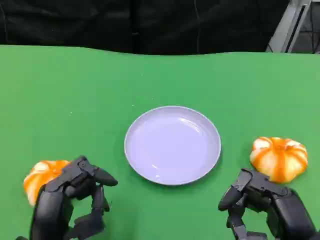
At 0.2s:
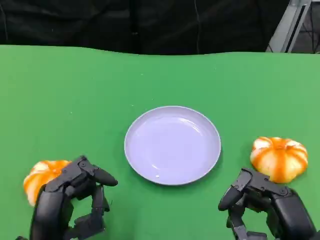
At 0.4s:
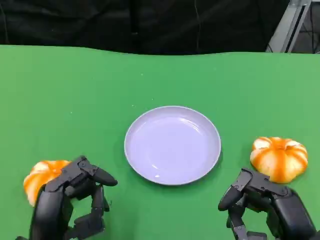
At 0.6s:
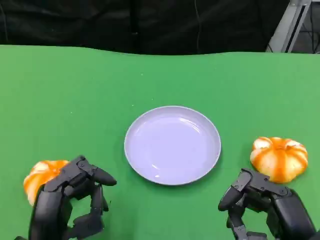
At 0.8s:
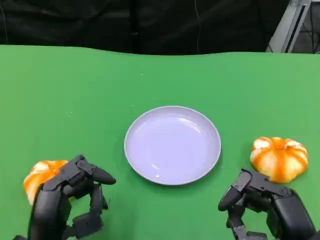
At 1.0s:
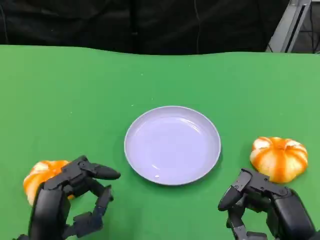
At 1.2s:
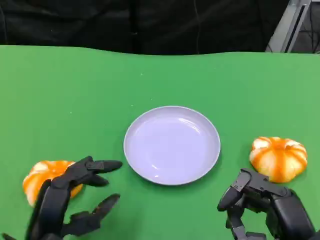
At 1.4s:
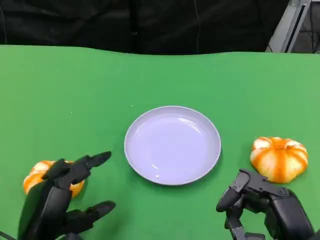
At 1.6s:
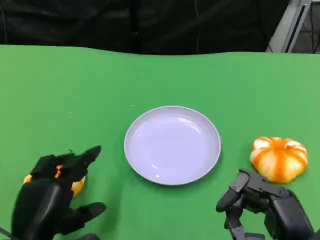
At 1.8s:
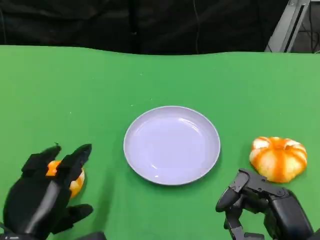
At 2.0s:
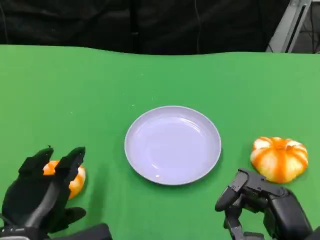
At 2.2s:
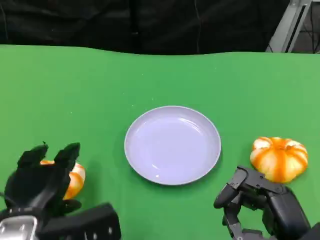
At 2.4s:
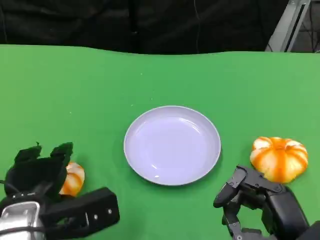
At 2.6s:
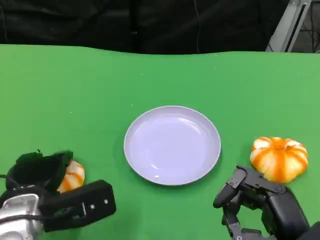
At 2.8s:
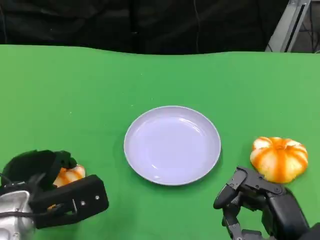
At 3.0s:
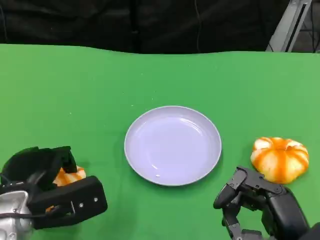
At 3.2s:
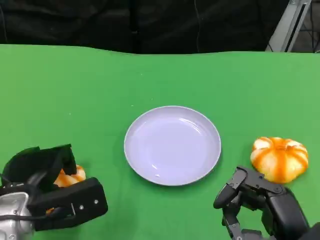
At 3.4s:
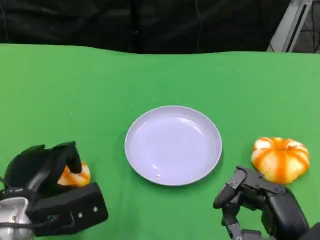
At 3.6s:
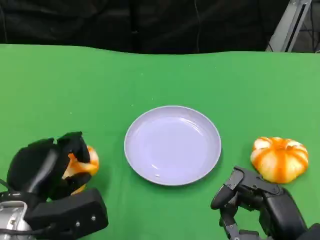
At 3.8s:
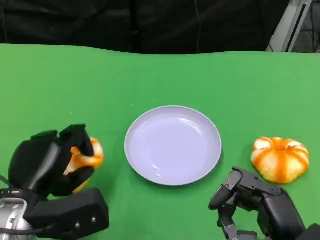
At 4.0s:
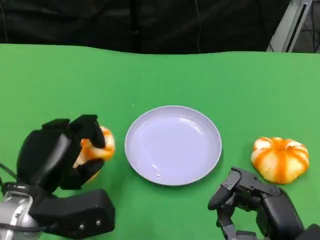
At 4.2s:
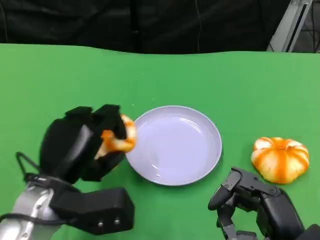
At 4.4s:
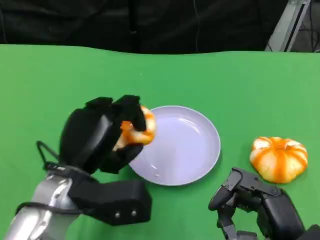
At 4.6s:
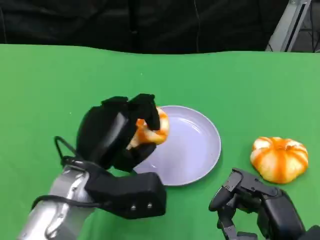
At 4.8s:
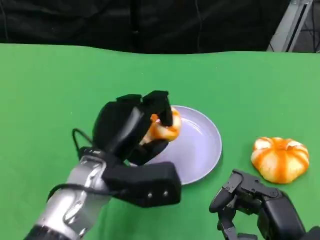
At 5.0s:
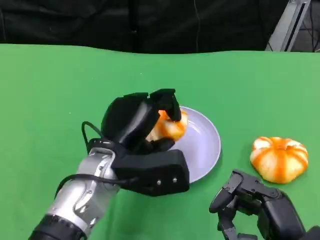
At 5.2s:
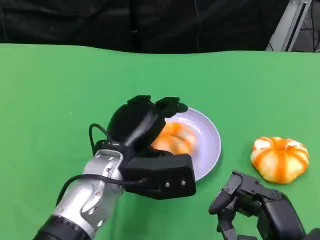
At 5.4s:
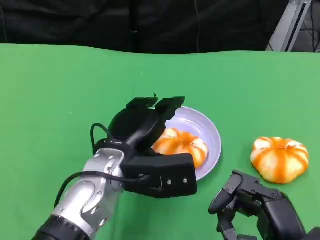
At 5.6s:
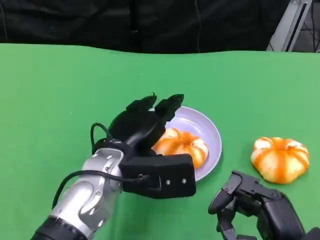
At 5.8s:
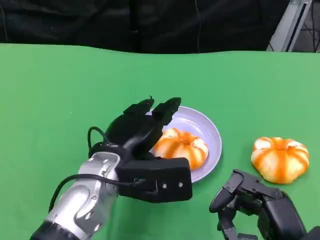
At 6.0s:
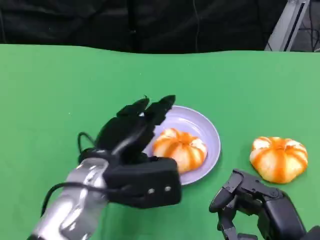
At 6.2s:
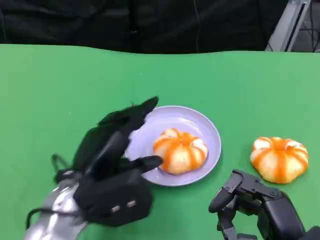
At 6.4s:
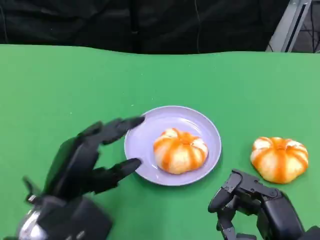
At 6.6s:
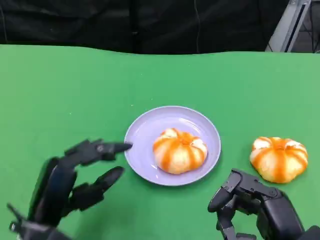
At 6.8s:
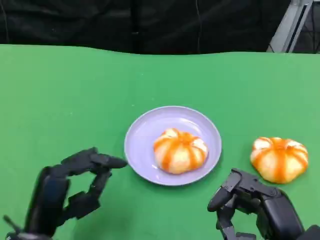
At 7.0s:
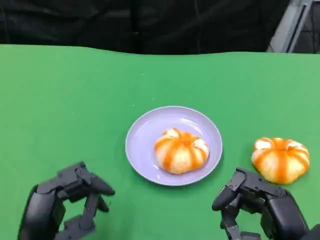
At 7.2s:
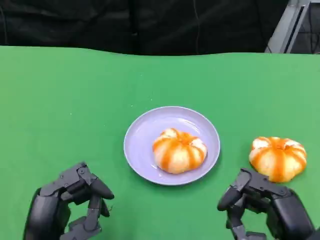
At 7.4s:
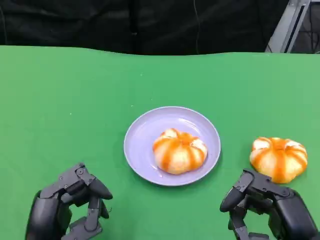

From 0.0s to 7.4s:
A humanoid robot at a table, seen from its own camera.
Task of the whole recording: Grasp the bread from the table and place it into the plate.
From 1.4s to 3.0s: The left hand moves forward, approximately 5 cm.
From 3.0s to 4.4s: The left hand is displaced to the right by about 5 cm.
From 6.0s to 7.4s: The left hand moves backward, to the left and downward, some 15 cm.

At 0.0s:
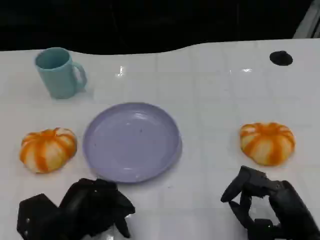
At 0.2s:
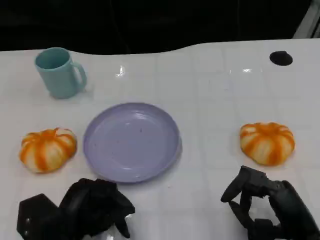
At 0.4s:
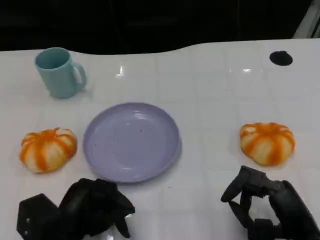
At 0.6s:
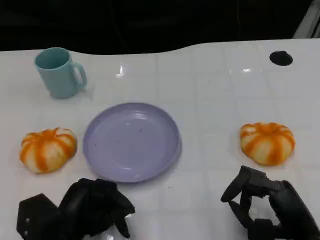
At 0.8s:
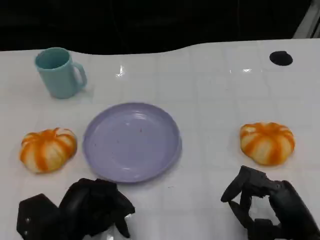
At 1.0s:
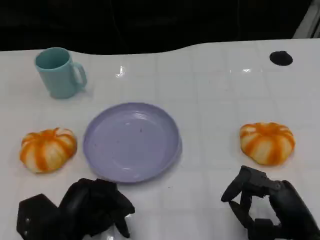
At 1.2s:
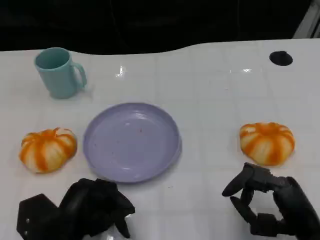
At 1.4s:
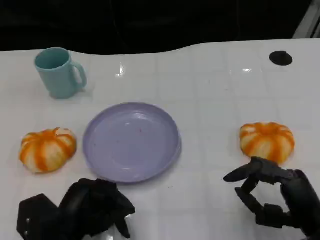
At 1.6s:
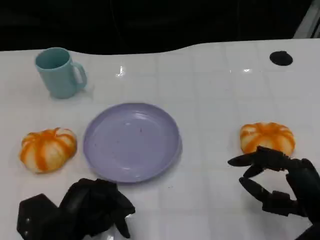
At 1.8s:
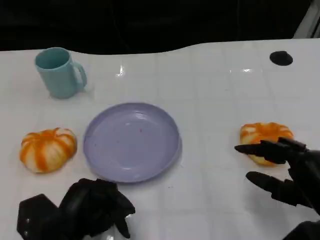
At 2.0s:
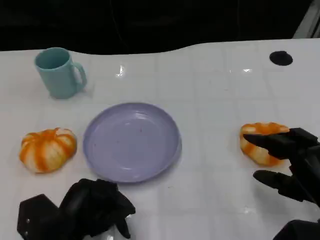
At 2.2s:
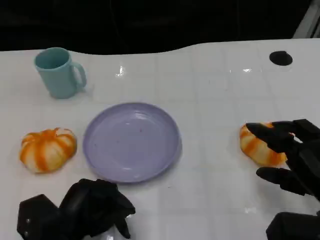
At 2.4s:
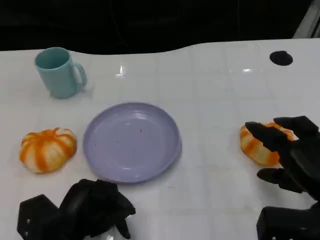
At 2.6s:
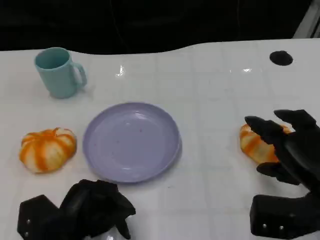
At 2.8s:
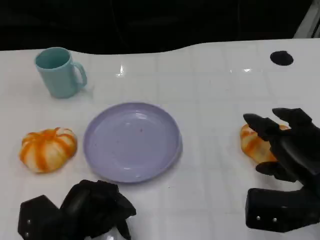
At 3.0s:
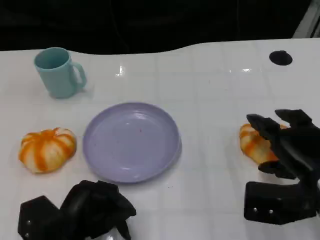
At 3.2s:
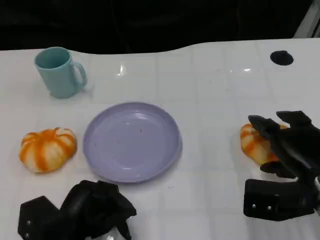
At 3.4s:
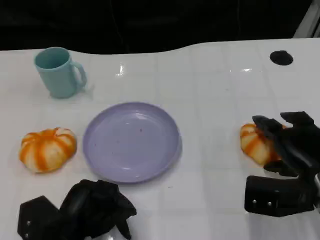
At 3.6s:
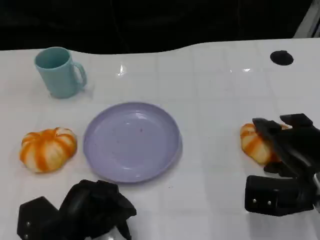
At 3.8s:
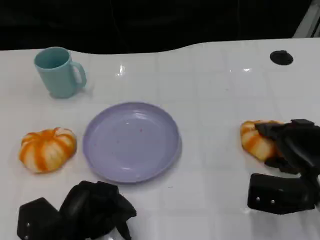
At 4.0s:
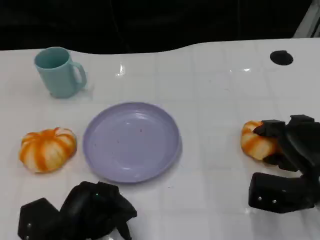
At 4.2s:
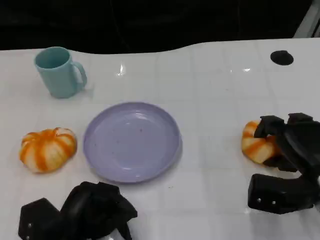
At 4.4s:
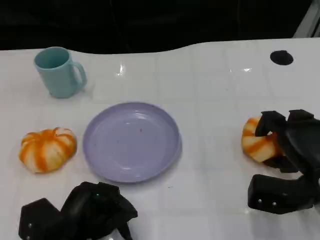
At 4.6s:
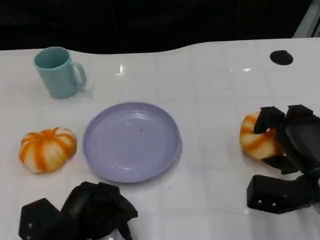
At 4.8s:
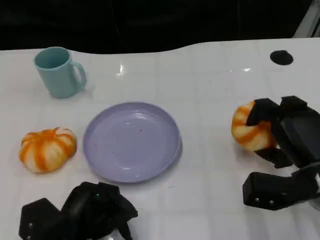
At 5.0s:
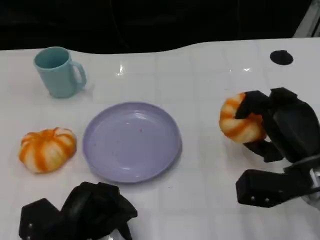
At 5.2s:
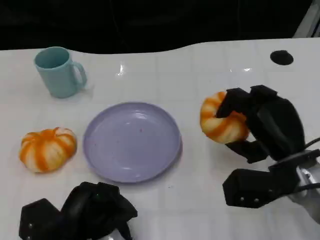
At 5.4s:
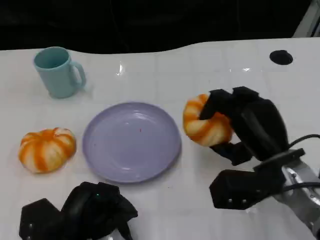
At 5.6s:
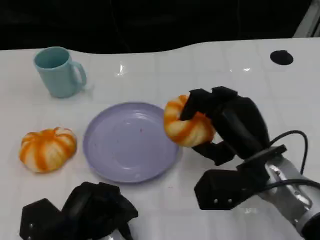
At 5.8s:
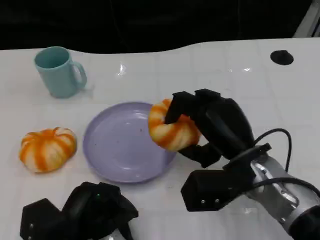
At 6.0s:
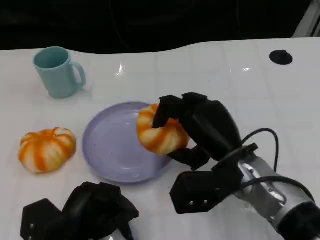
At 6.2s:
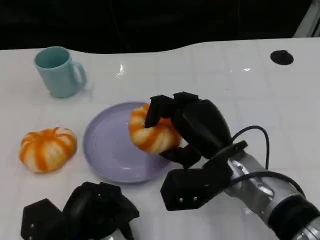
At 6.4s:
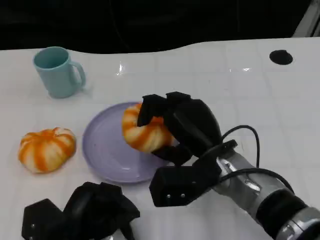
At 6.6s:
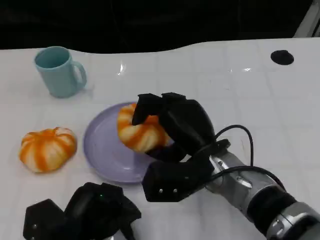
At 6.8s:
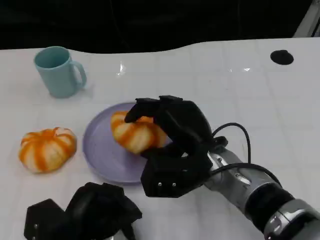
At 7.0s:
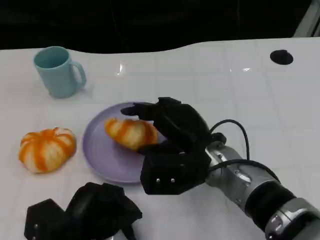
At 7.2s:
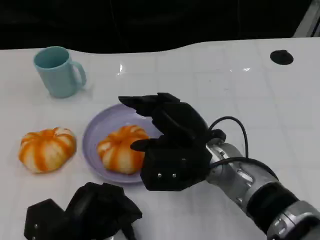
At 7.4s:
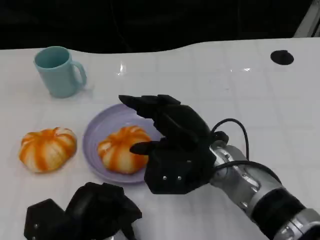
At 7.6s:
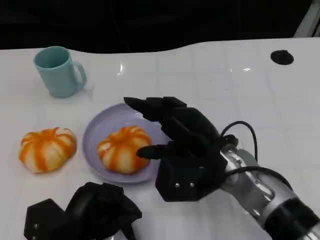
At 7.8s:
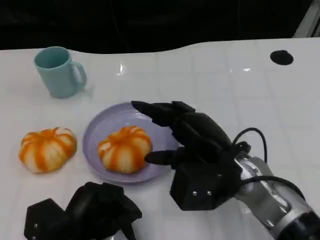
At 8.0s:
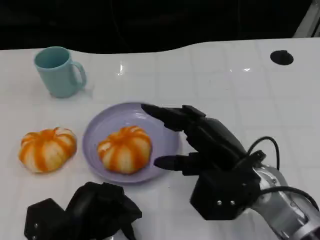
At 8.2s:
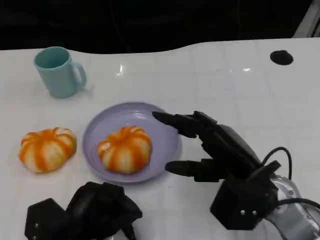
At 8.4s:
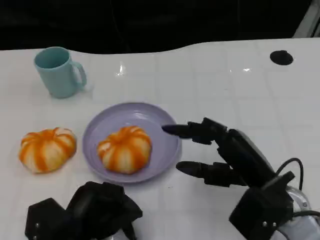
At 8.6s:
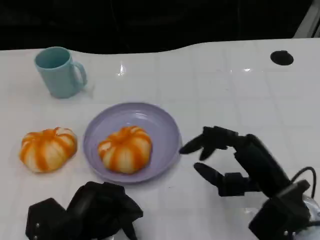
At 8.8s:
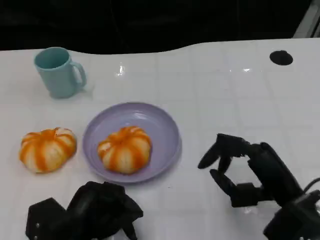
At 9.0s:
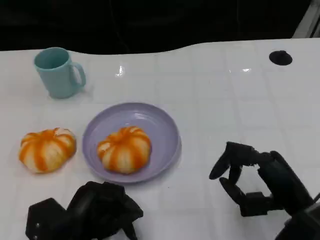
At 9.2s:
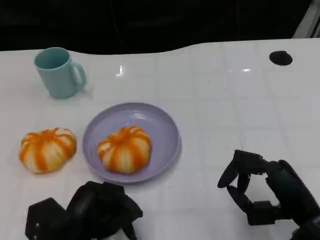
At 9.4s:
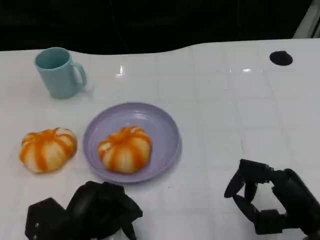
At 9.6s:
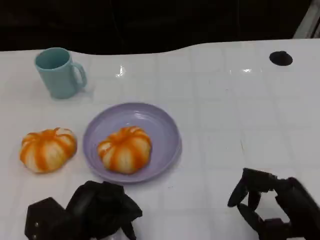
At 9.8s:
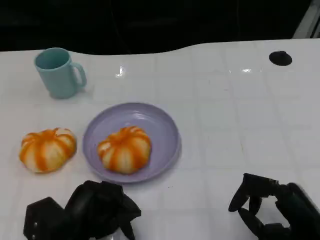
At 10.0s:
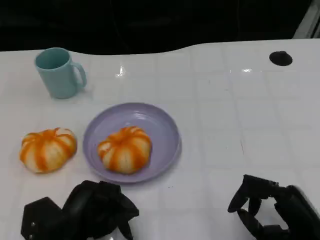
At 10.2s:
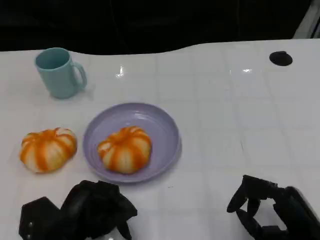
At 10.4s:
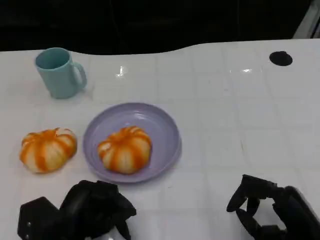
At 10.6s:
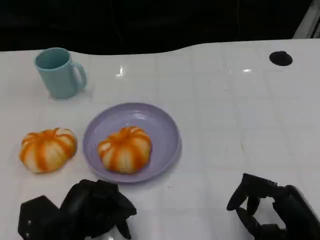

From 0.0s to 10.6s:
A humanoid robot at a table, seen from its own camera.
Task of the whole recording: Grasp the bread from the table and place it into the plate.
From 0.0s to 1.6s: There are only small adjustments of the hands.
From 1.6s to 3.0s: The right hand travels forward by approximately 5 cm.
From 3.0s to 4.6s: The hands stay close to where they were, moving slightly.
From 4.6s to 6.0s: The right hand is displaced to the left by approximately 15 cm.
From 6.0s to 7.6s: The hands stay close to where they were, moving slightly.
From 7.6s to 9.0s: The right hand is displaced to the right and backward by roughly 15 cm.
From 9.0s to 10.6s: The hands stay close to where they were, moving slightly.

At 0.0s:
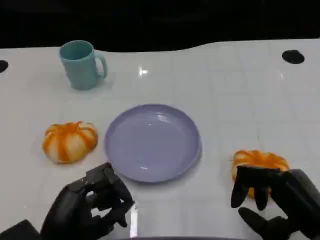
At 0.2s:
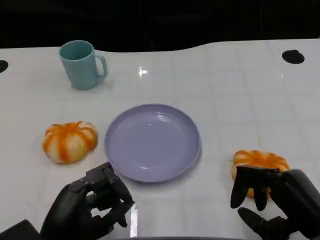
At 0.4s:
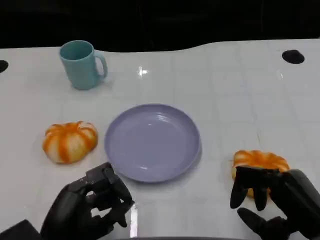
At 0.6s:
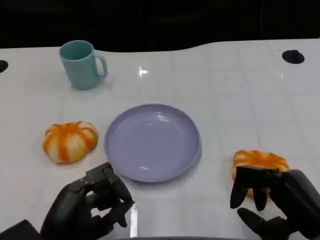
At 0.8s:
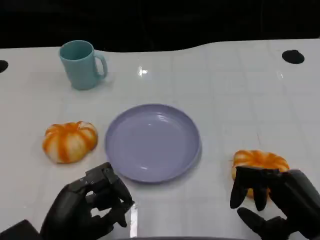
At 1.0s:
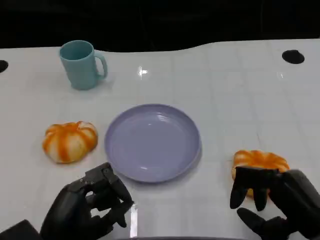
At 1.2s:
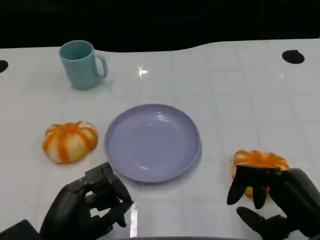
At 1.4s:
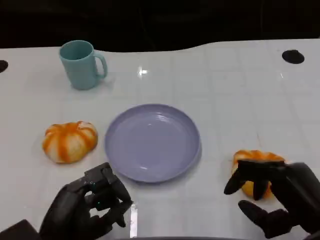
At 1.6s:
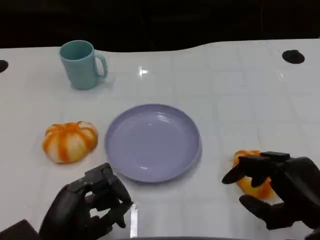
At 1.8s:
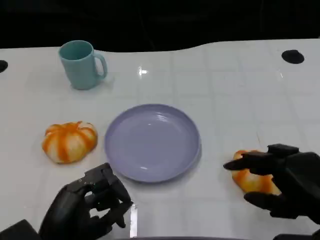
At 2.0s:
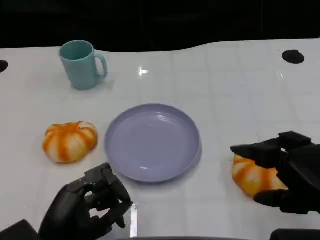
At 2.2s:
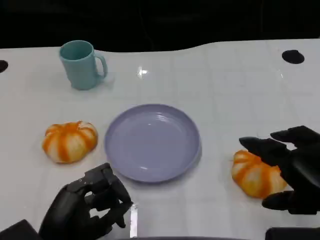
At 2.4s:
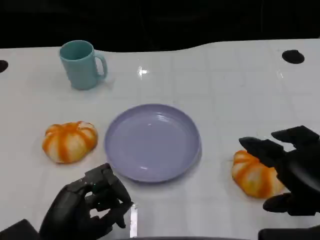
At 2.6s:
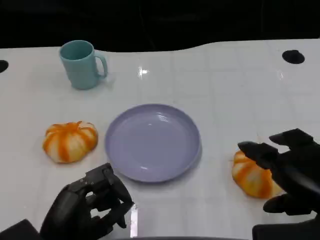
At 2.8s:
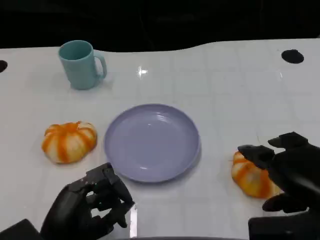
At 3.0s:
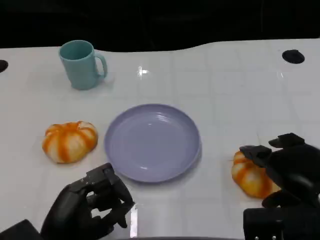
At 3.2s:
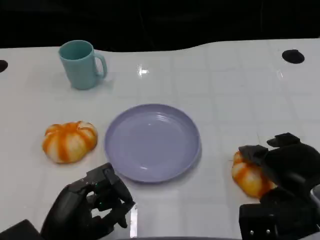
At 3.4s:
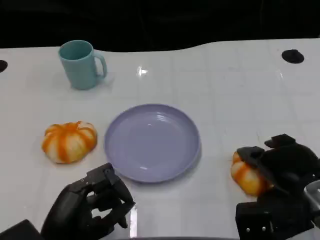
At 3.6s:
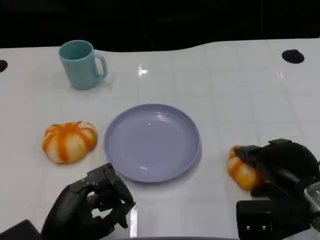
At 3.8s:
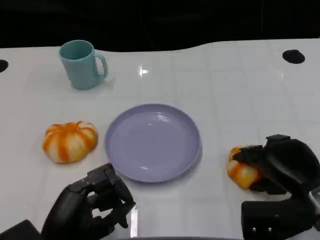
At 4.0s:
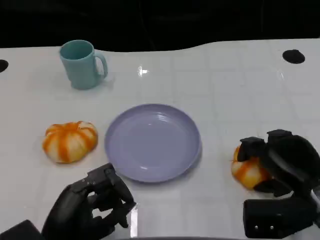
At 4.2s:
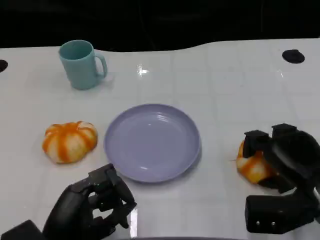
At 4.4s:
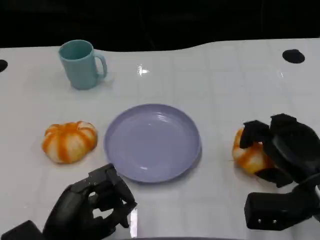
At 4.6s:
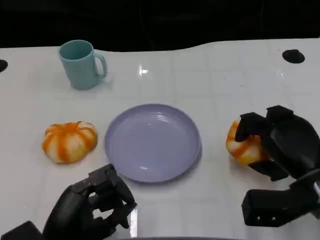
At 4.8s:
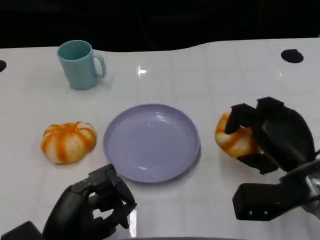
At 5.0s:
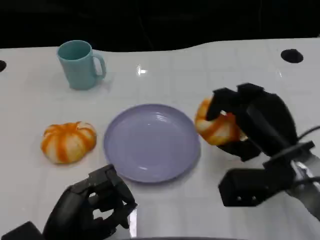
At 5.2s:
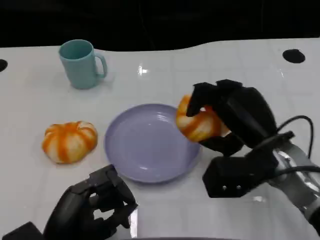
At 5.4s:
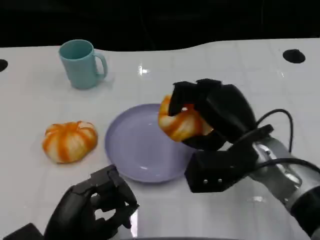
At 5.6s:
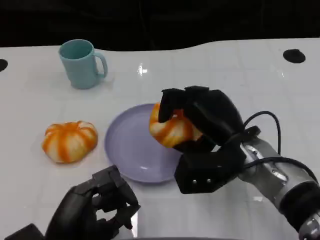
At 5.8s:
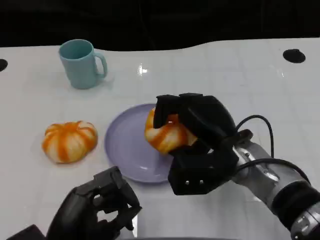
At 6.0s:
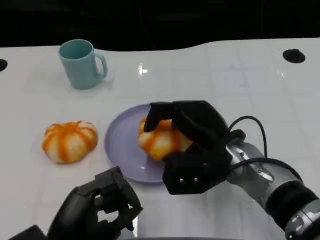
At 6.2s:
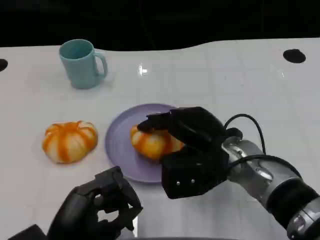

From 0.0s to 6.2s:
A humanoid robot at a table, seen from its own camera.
Task of the whole recording: Grasp the bread from the table and place it into the plate.
From 0.0s to 1.6s: The hands make only small movements.
From 1.6s to 3.2s: The right hand travels forward by about 5 cm.
From 4.6s to 6.2s: The right hand heads to the left, covering roughly 10 cm.
